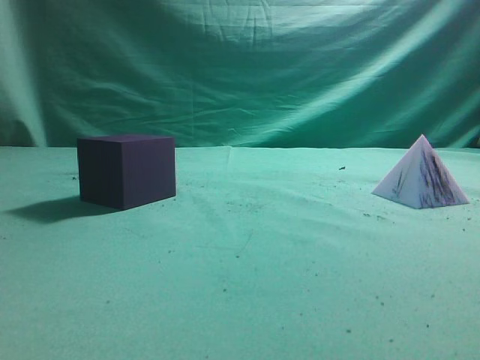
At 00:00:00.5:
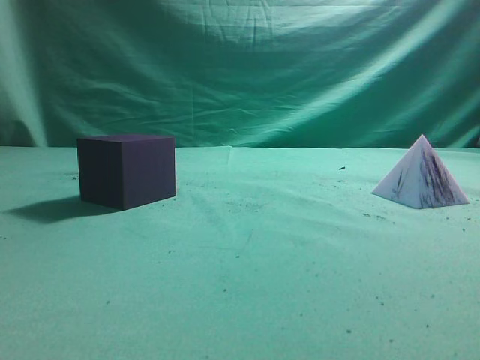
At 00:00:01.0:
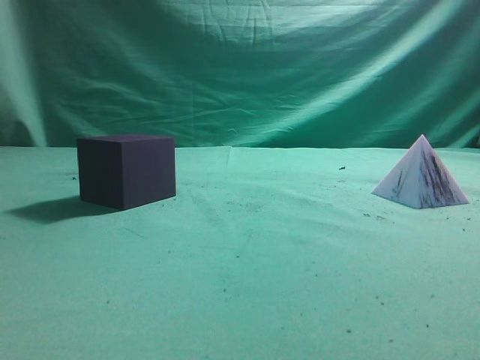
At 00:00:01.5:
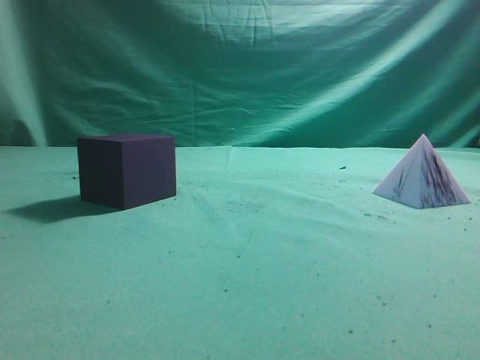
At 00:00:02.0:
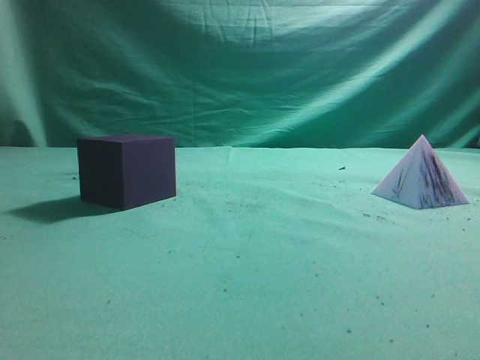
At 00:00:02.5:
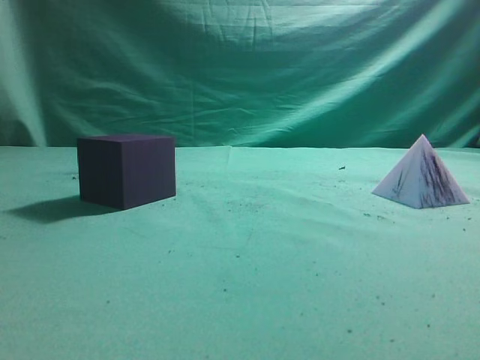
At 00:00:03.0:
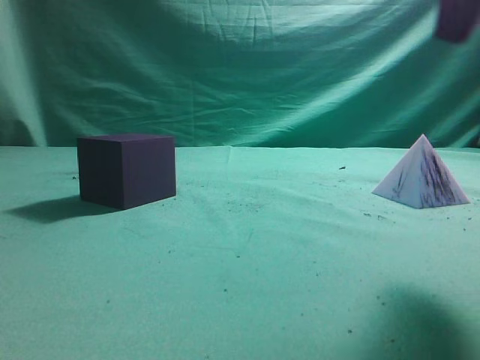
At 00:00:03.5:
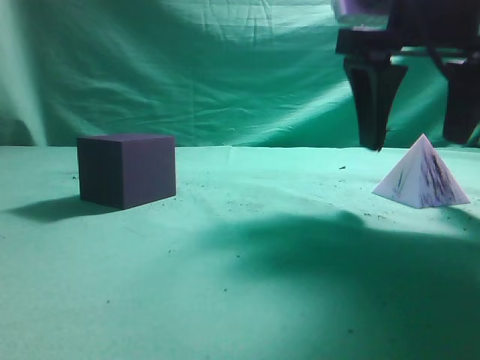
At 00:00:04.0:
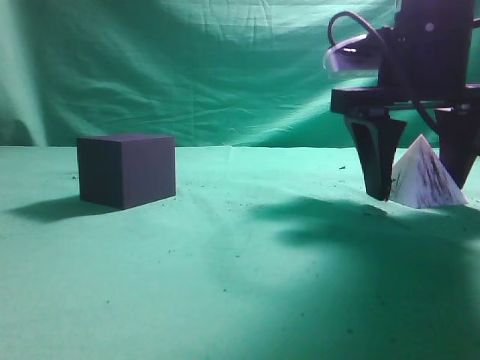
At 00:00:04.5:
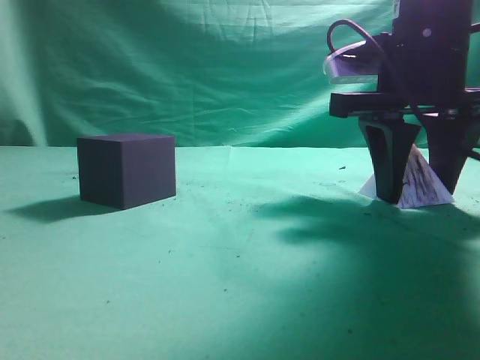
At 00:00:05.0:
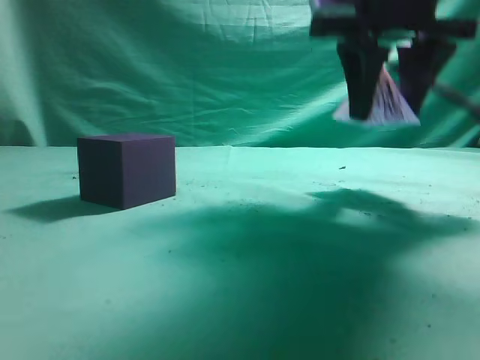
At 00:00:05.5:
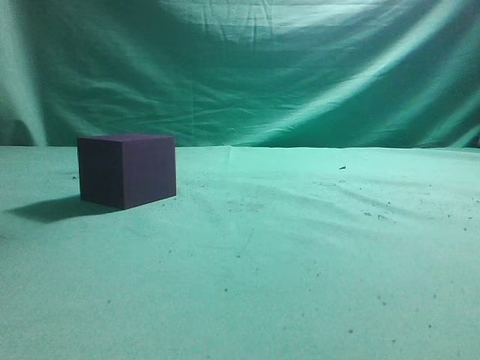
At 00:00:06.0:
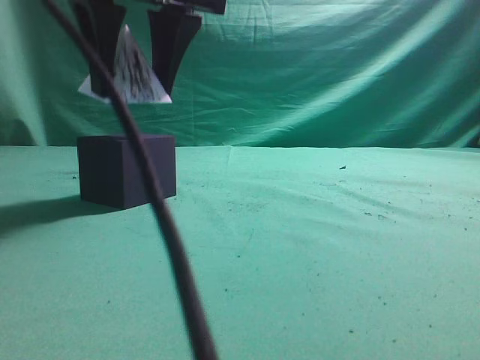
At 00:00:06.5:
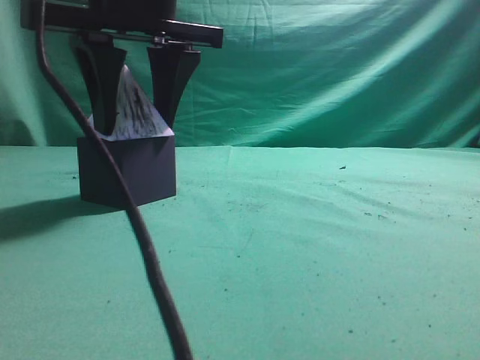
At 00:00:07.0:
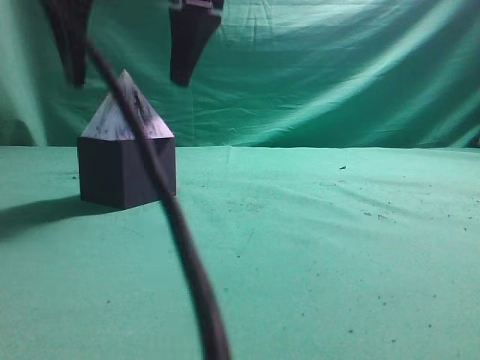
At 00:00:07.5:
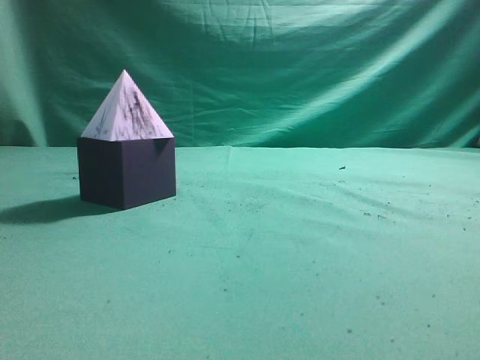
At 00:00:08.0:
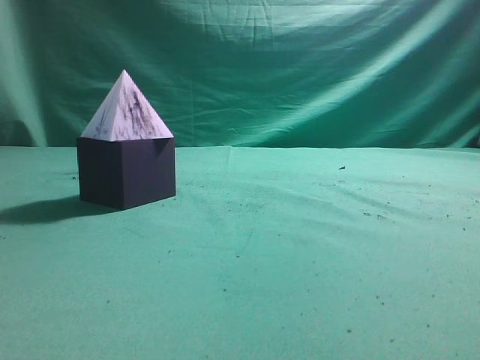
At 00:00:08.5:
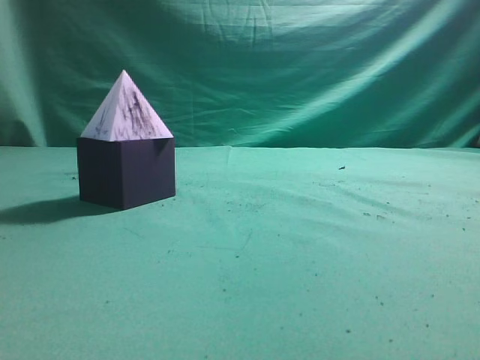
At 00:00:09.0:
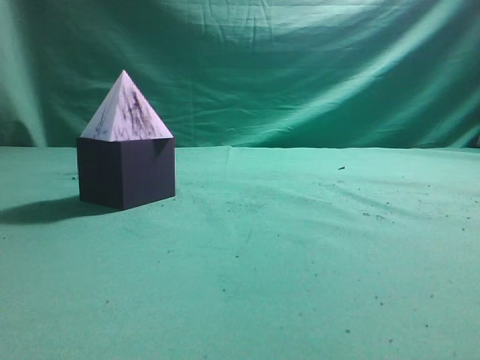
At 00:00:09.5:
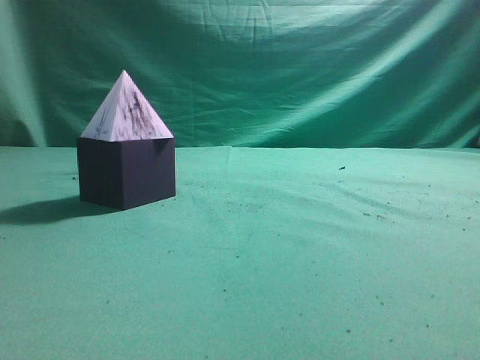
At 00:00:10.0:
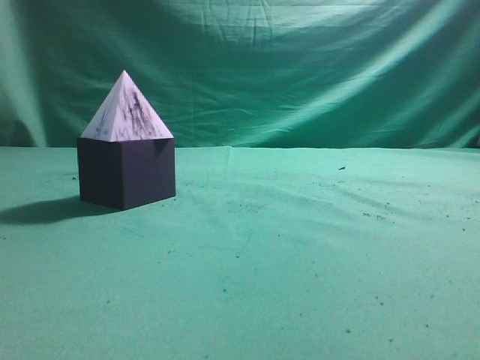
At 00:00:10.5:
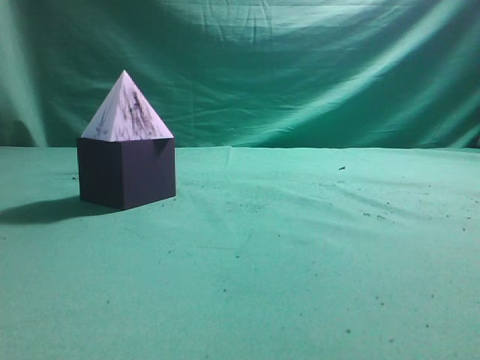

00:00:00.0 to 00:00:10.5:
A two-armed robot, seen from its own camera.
Task of the whole recording: pick up the square pyramid from the table and place it on the cube block.
Step, 00:00:00.0 to 00:00:04.5: Grasp the triangular block.
Step, 00:00:05.0 to 00:00:07.0: Place the block onto the cube-shaped block.
00:00:02.0 to 00:00:04.0: The right gripper is displaced forward, to the left and downward by some 30 cm, and opens its fingers.
00:00:04.0 to 00:00:06.5: The right gripper is displaced to the left by roughly 20 cm.
00:00:06.5 to 00:00:08.5: The right gripper is displaced to the right, backward and upward by about 40 cm, and closes its fingers.
